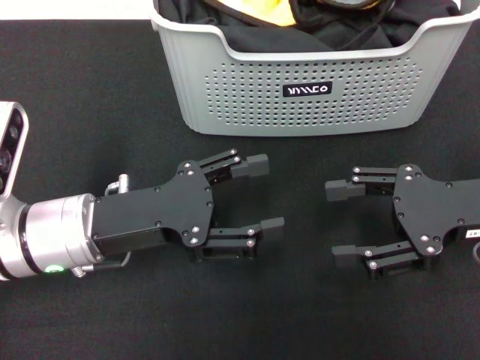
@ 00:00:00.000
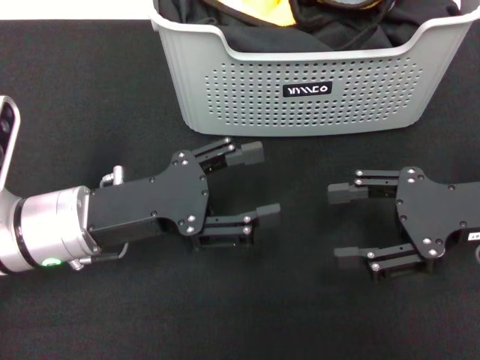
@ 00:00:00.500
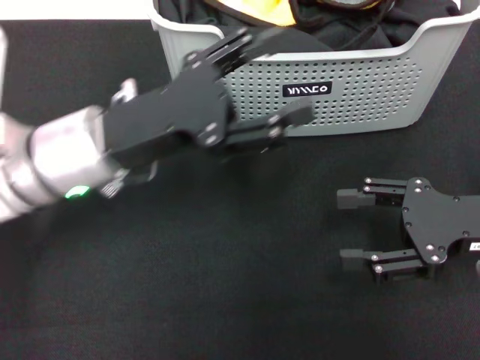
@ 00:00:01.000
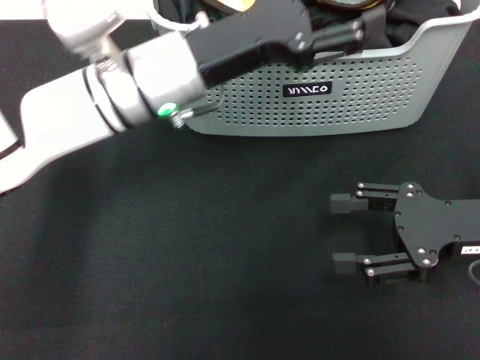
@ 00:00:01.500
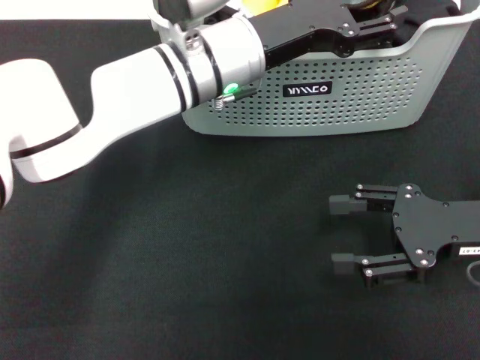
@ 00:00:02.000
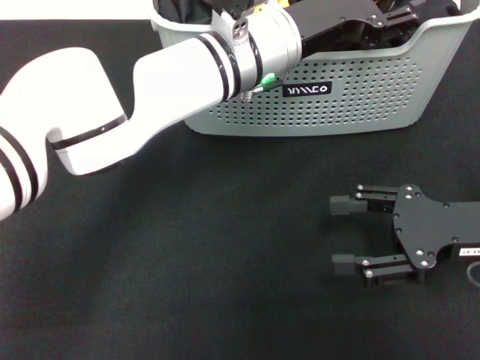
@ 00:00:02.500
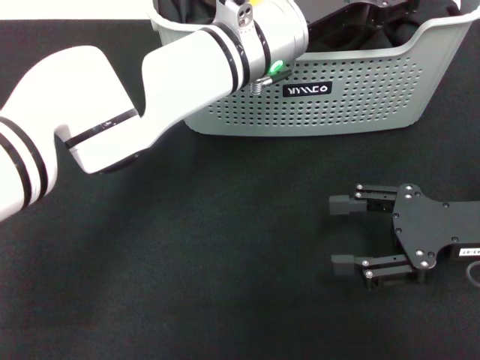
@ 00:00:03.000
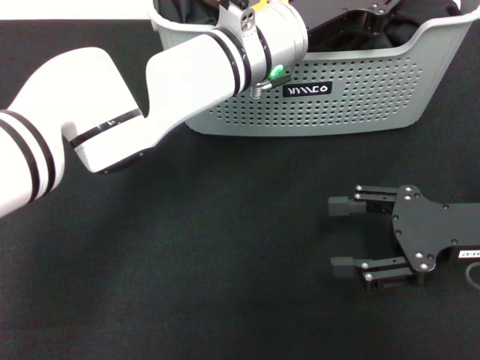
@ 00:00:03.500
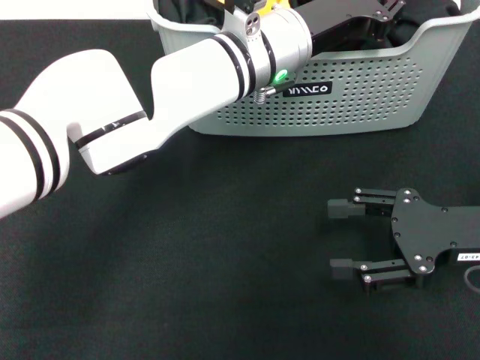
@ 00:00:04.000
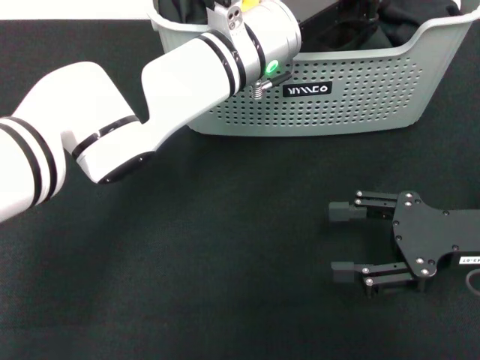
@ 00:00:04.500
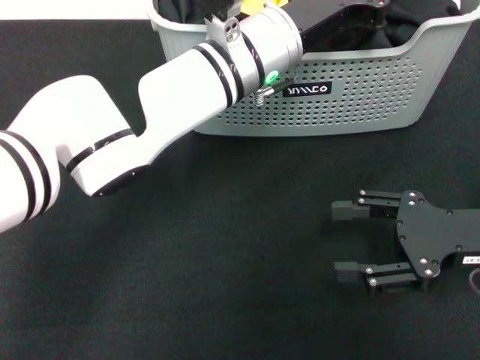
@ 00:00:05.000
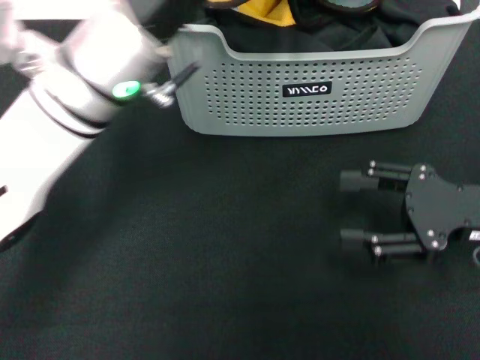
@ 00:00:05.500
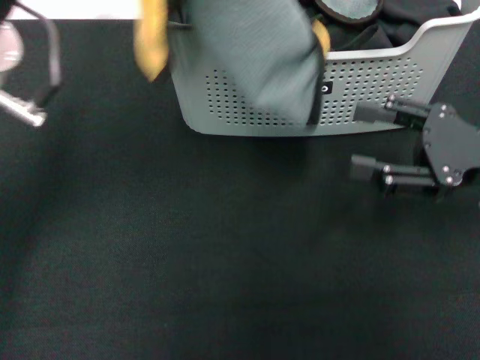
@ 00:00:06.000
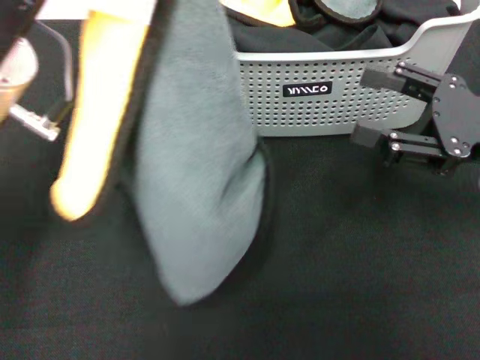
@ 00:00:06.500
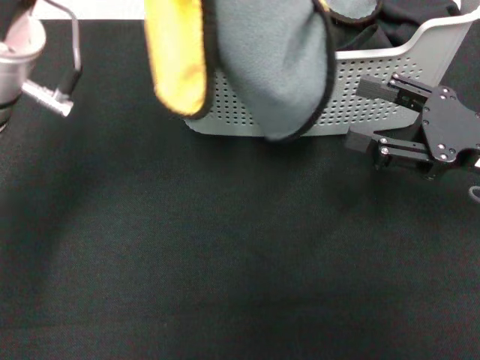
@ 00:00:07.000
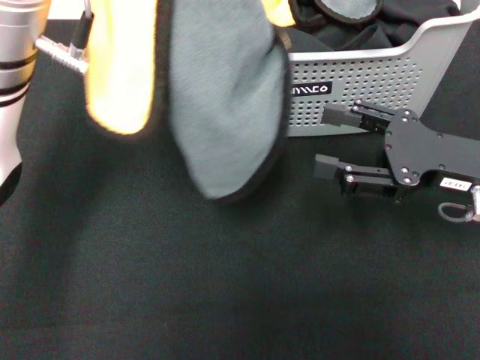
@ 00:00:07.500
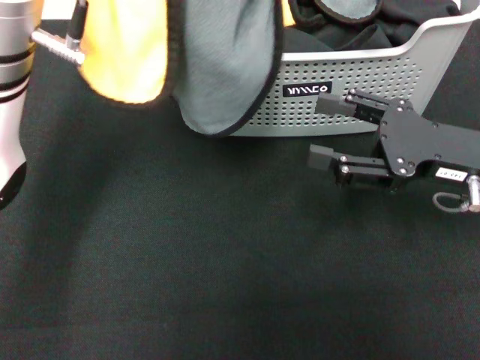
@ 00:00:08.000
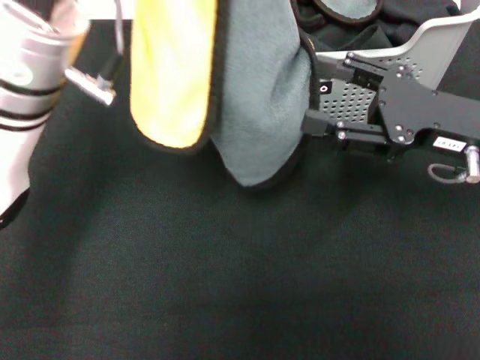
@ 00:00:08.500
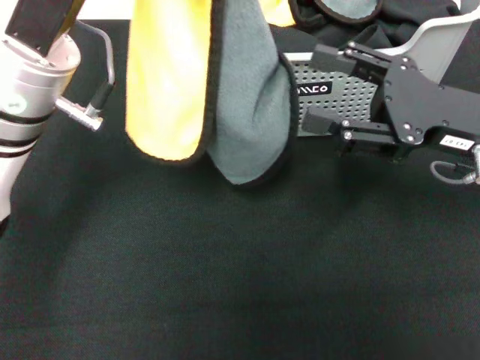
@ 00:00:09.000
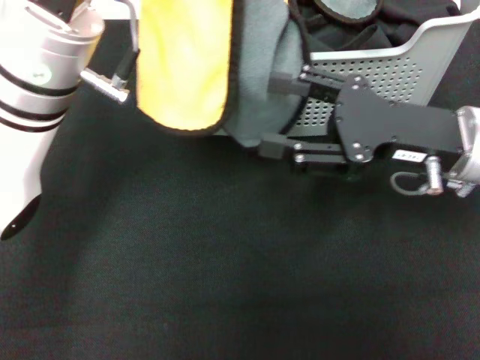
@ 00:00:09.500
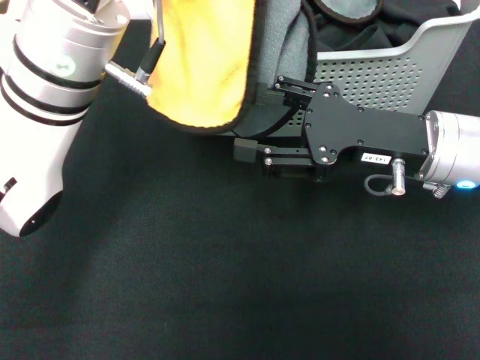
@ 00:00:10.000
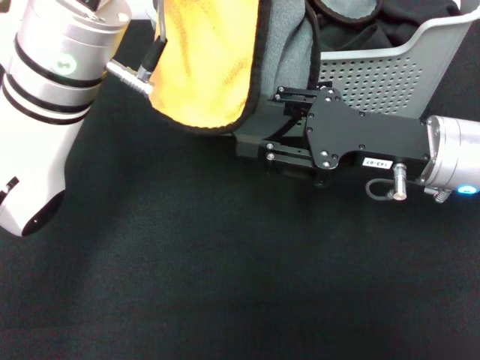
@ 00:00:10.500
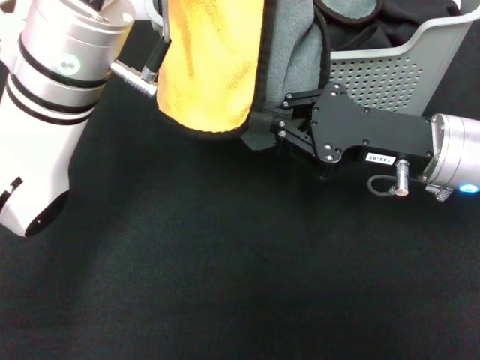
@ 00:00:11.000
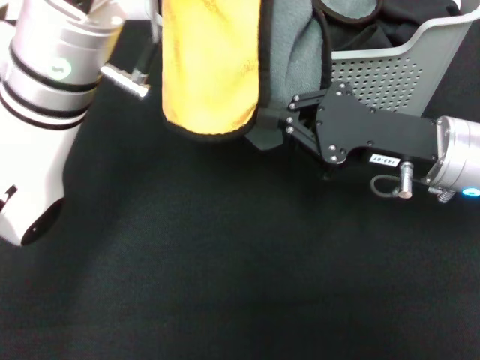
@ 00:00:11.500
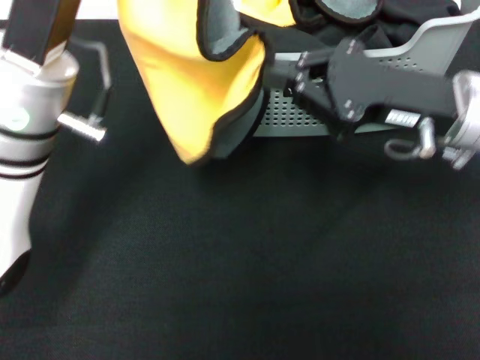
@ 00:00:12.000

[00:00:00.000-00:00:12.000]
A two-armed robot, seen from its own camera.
Task of the whole recording: pick up the towel from the storage box and lay it flat on the black tablecloth.
Step, 00:00:00.000 to 00:00:05.500: Pick up a towel with the left gripper.
Step, 00:00:06.000 to 00:00:11.000: Spread the towel flat with the left gripper.
00:00:00.000 to 00:00:02.000: The left gripper heads to the right, forward and upward, covering roughly 20 cm.
00:00:02.000 to 00:00:04.000: The left gripper closes its fingers.
00:00:04.000 to 00:00:06.000: The left gripper travels to the left and backward by approximately 20 cm.
00:00:08.000 to 00:00:10.000: The right gripper goes about 5 cm to the left.
00:00:10.000 to 00:00:12.000: The right gripper closes; the left gripper changes place by some 5 cm.

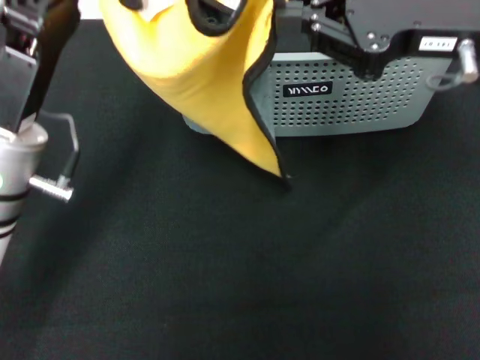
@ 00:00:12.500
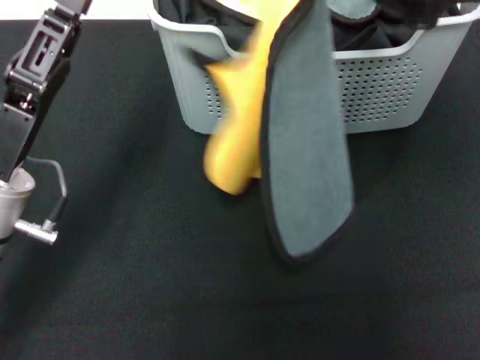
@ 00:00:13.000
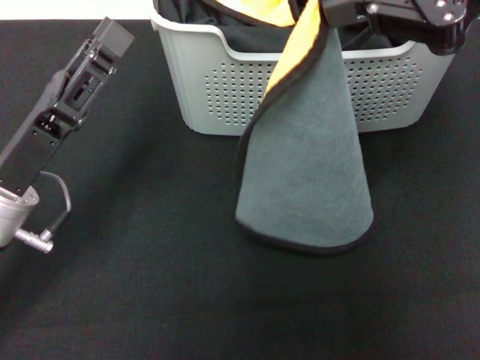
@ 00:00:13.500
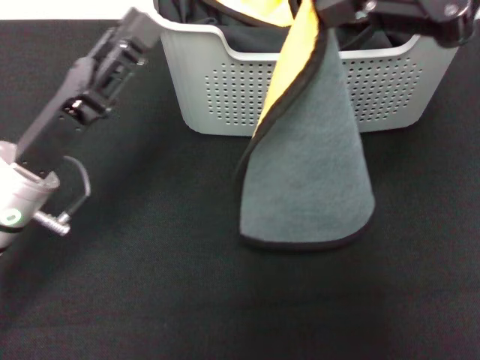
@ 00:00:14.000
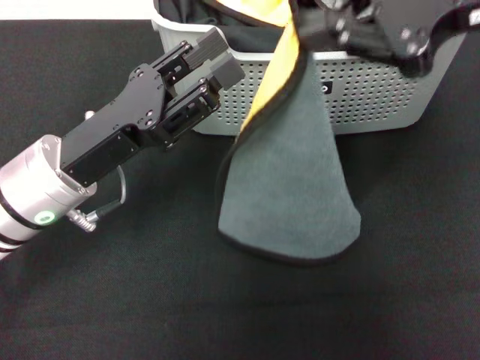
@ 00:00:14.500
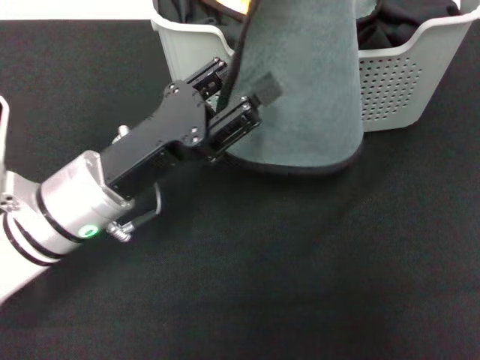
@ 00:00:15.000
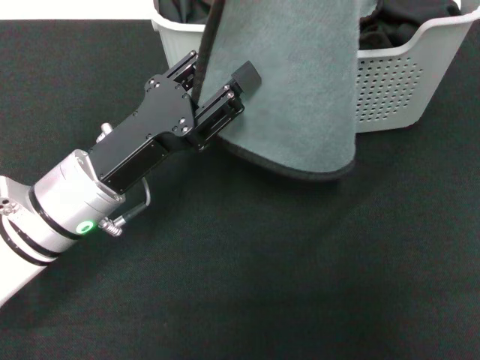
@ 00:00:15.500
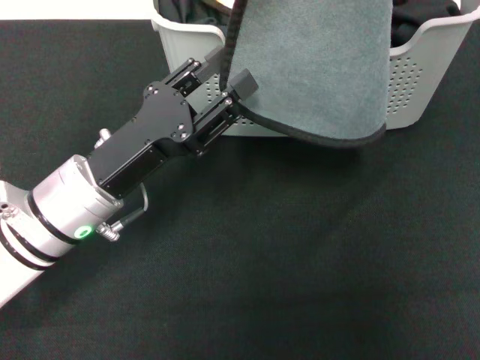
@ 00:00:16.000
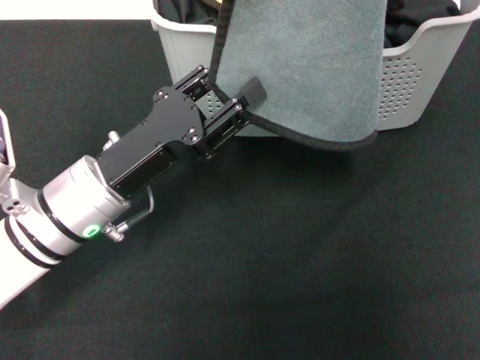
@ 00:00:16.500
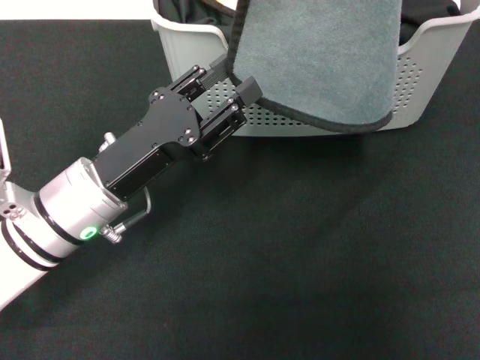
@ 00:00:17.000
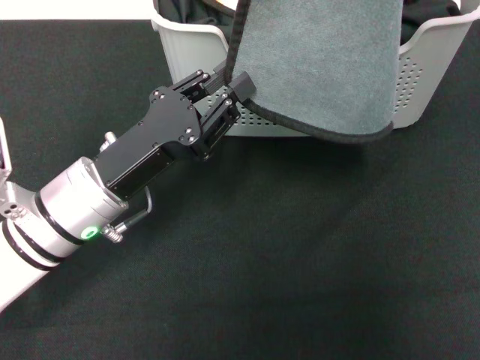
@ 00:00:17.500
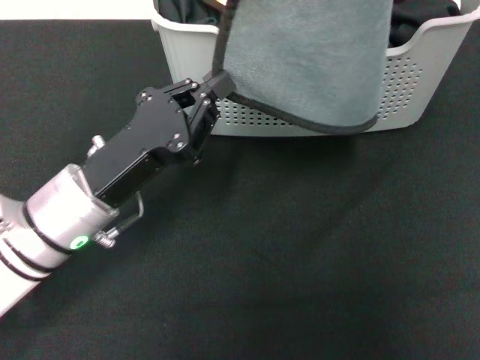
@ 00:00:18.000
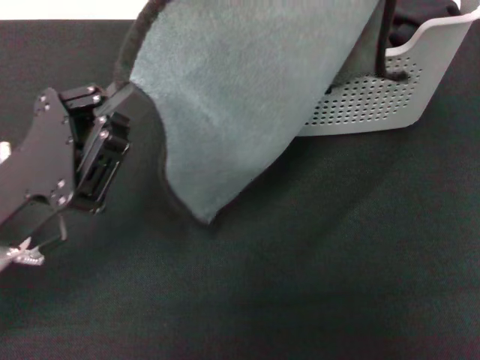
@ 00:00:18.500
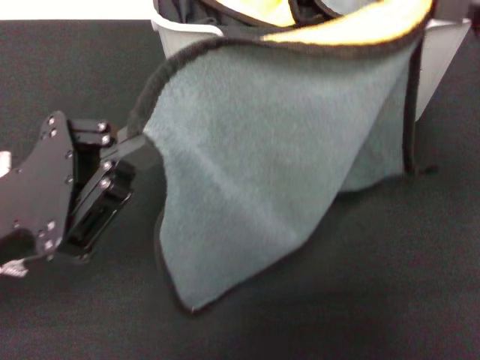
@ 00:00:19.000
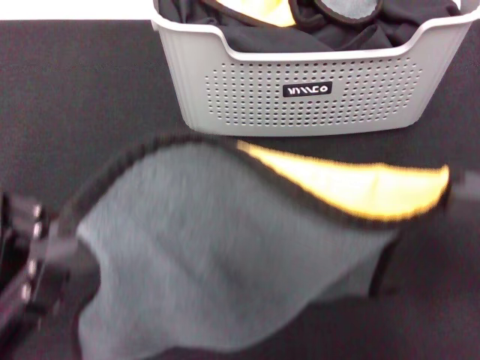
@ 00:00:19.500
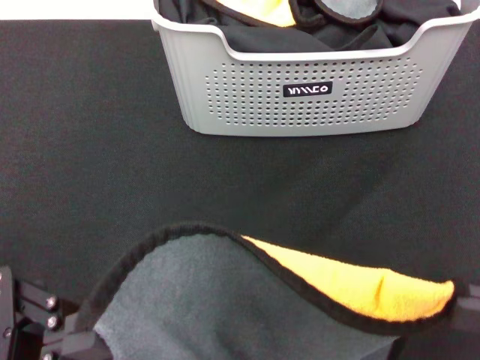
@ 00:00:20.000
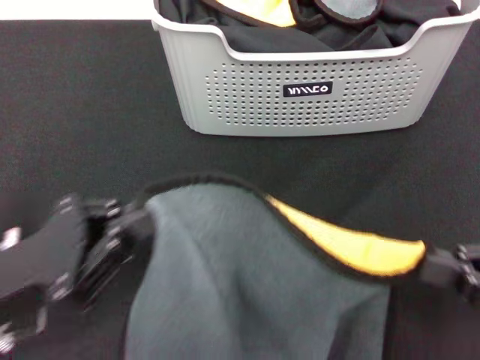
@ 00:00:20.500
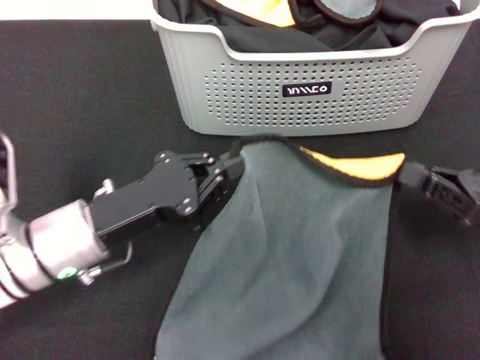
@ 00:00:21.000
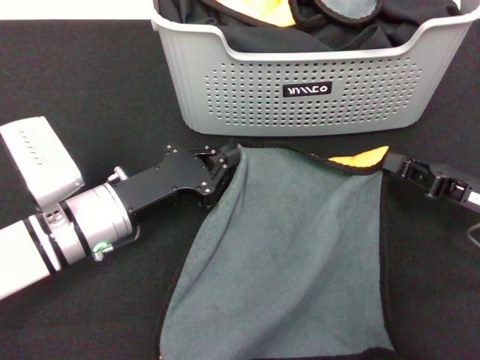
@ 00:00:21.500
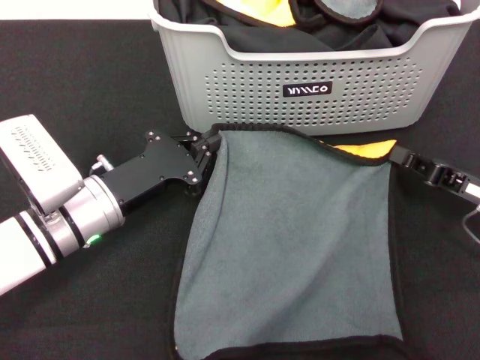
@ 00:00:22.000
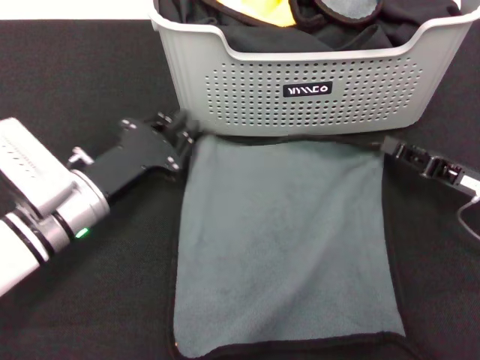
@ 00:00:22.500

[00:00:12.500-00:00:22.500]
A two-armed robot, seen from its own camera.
Task of the whole recording: pick up the towel from the storage box and lay it flat on the black tablecloth.
00:00:12.500 to 00:00:14.500: The right gripper goes some 10 cm upward. The left gripper opens.
00:00:14.500 to 00:00:16.500: The right gripper moves approximately 5 cm.
00:00:16.500 to 00:00:18.500: The left gripper is displaced backward by approximately 5 cm, and closes its fingers, while the right gripper is displaced downward by approximately 5 cm.
00:00:18.500 to 00:00:20.500: The right gripper moves downward and backward, about 25 cm.
00:00:20.500 to 00:00:22.500: Both grippers move forward and downward, about 15 cm.

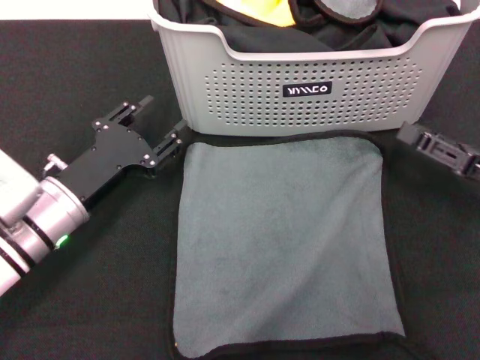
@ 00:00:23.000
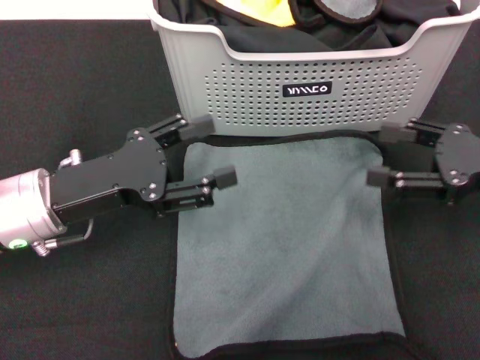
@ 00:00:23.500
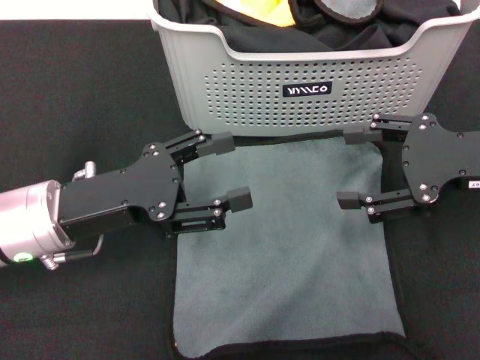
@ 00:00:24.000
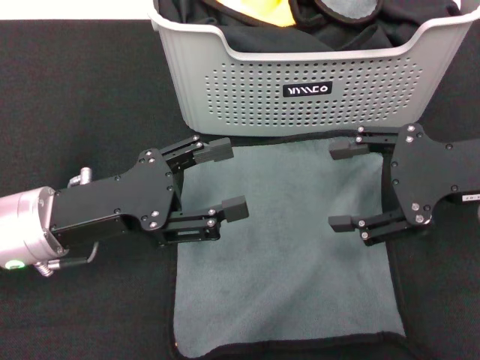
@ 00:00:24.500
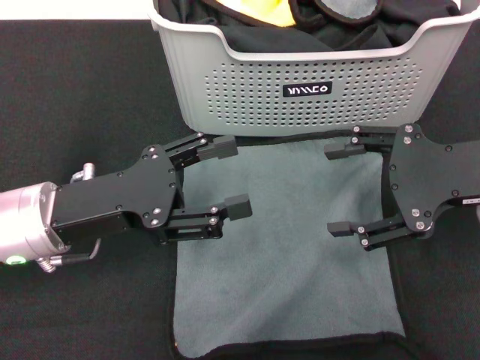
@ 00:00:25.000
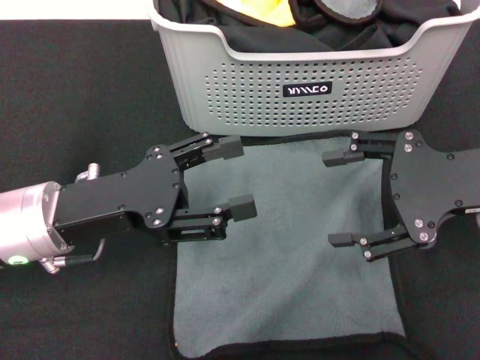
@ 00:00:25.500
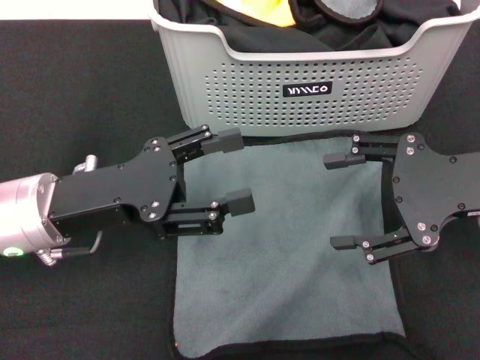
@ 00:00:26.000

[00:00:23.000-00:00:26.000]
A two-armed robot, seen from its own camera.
Task of the whole recording: pick up the towel from the storage box and lay it flat on the black tablecloth.
00:00:23.000 to 00:00:24.500: The left gripper travels upward by roughly 5 cm, and opens its fingers; the right gripper moves upward and to the left, some 15 cm, and opens.
00:00:24.500 to 00:00:26.000: There are only small adjustments of the grippers.
